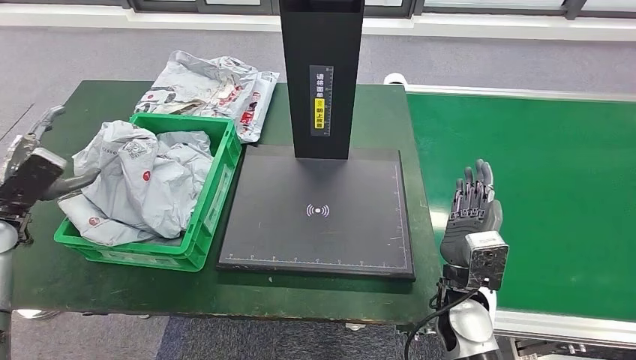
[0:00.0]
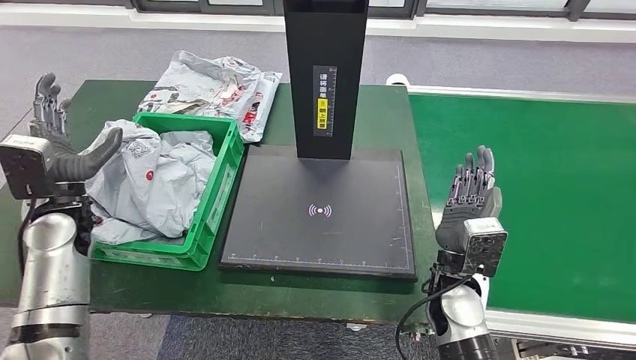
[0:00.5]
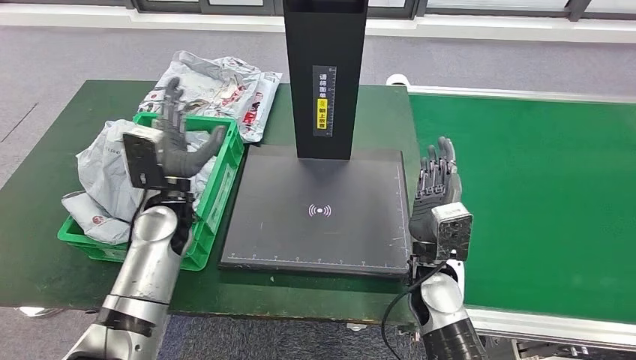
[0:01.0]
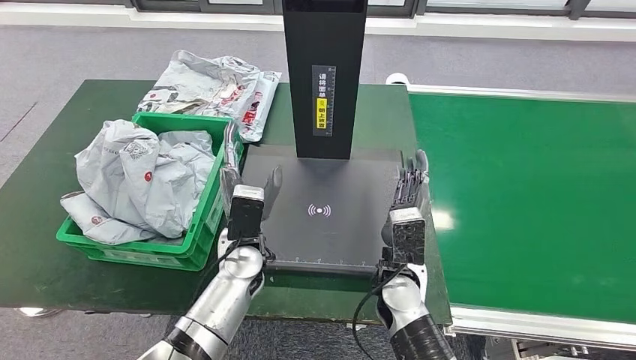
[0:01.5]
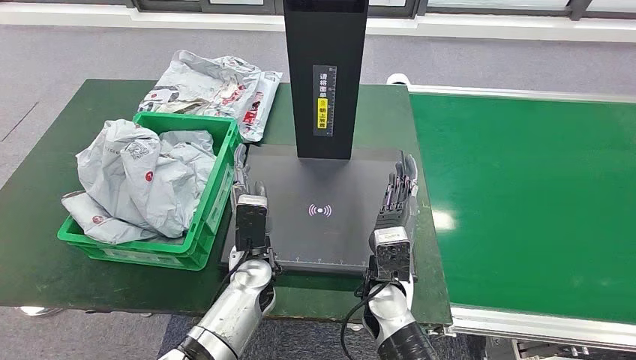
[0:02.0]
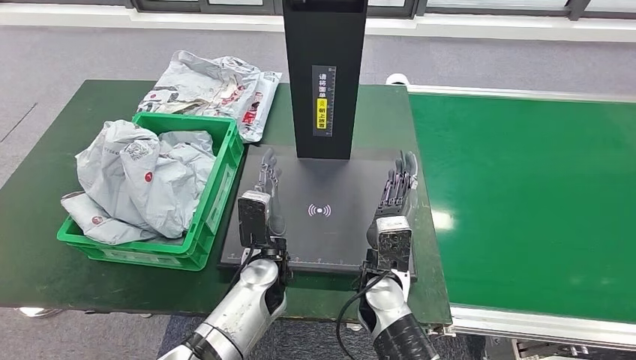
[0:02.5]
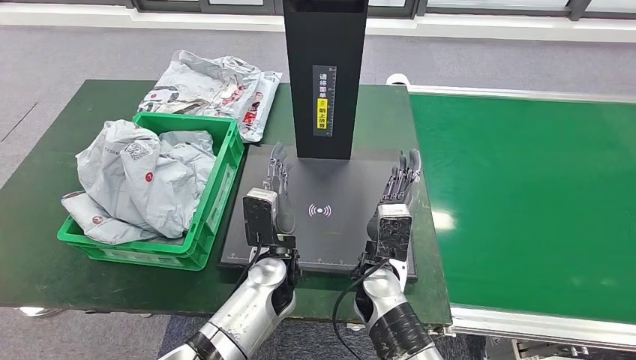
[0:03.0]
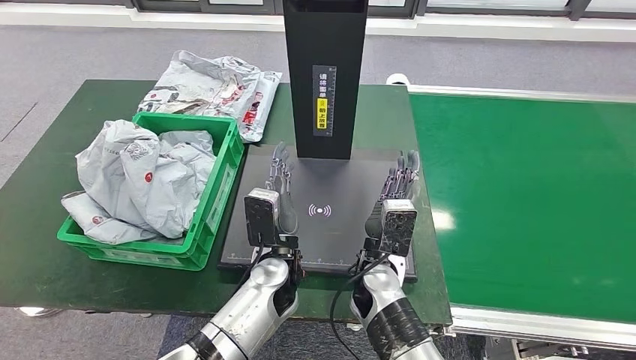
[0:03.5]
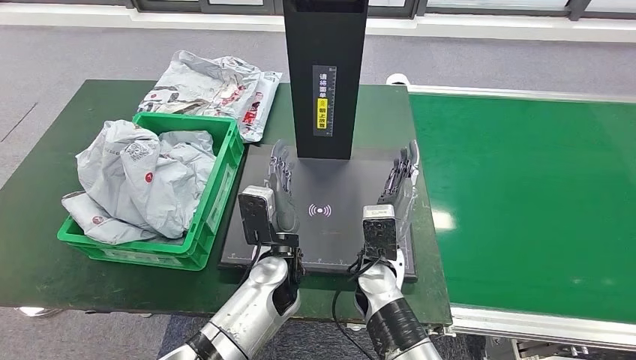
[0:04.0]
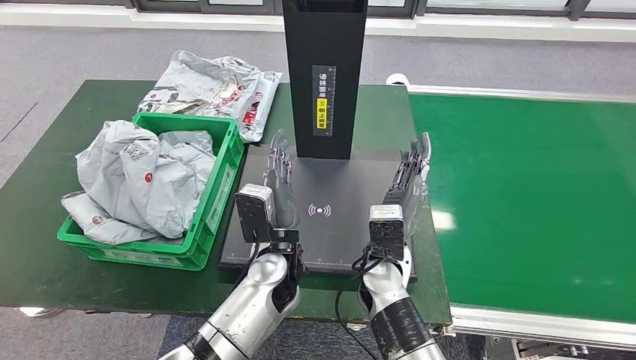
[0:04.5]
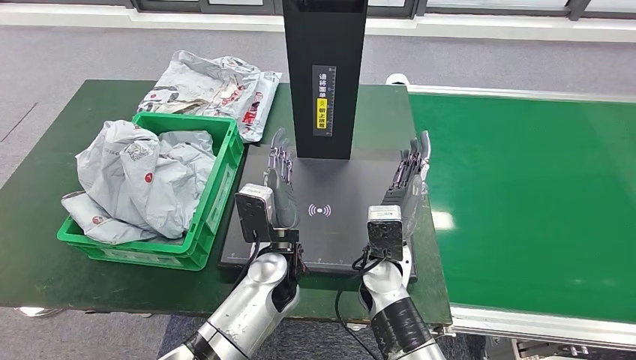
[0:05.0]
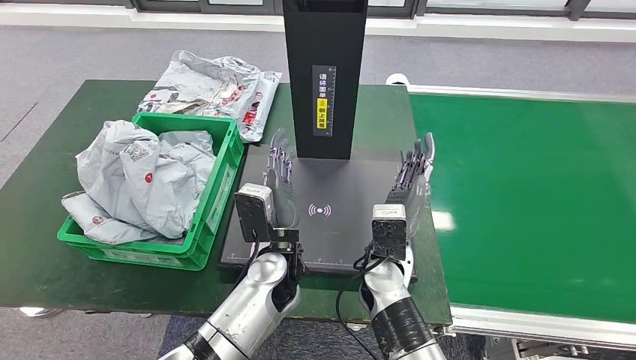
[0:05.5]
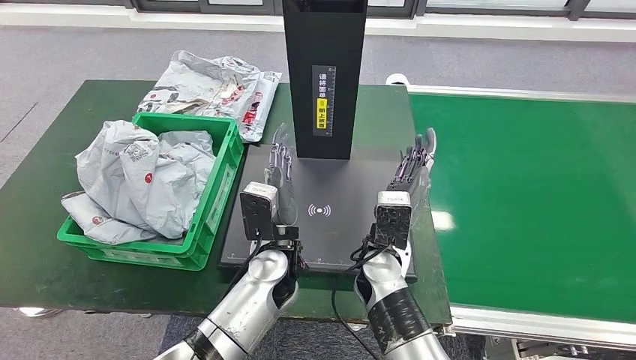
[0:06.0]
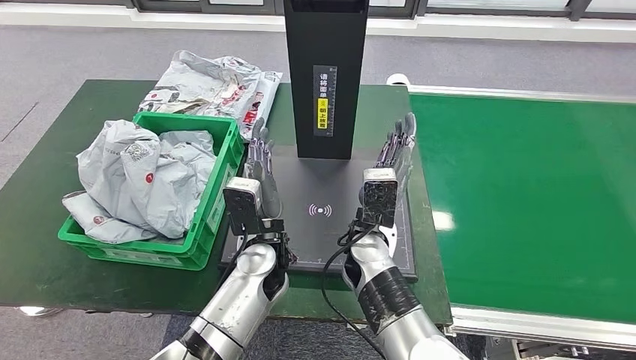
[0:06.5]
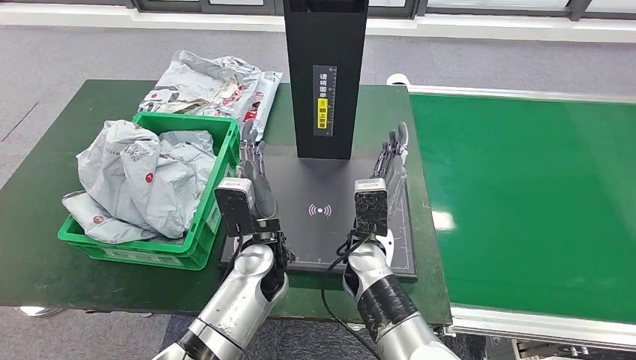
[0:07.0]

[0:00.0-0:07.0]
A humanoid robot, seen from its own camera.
Step, 0:00.0 to 0:07.0: Place the parcel into the delivery box.
0:03.5 to 0:07.0: The hands move only a little.
